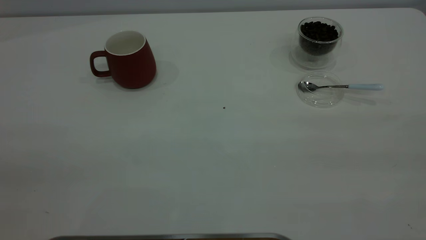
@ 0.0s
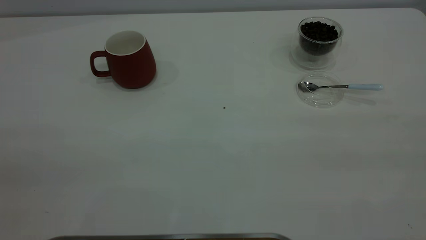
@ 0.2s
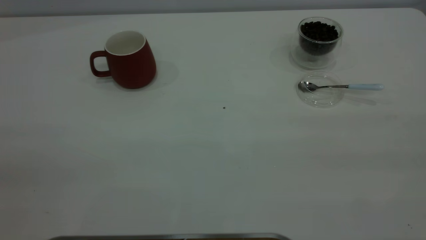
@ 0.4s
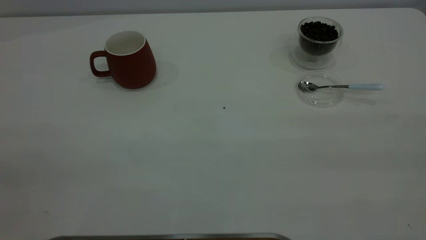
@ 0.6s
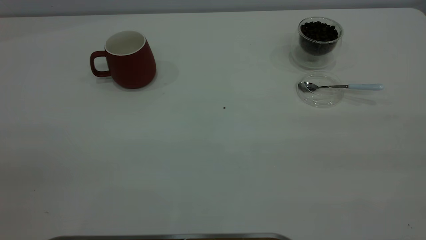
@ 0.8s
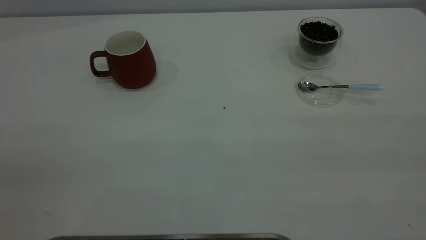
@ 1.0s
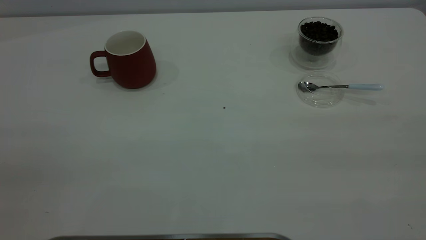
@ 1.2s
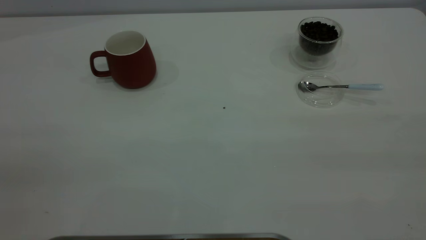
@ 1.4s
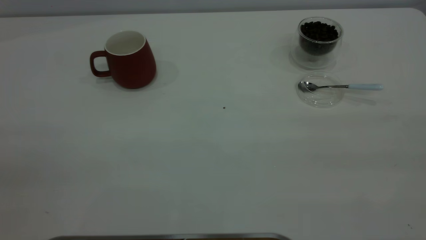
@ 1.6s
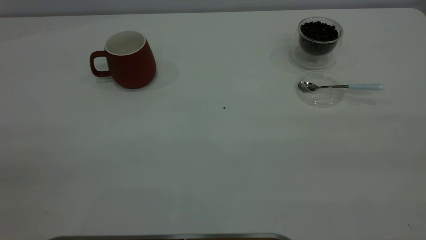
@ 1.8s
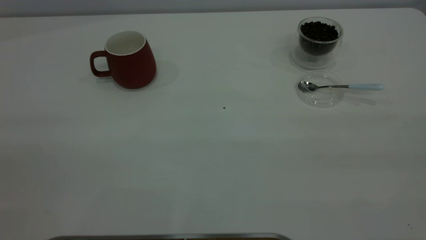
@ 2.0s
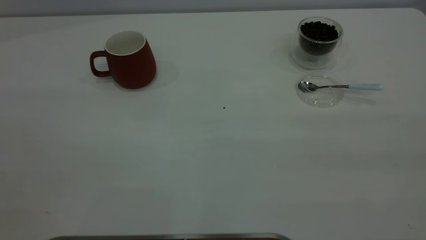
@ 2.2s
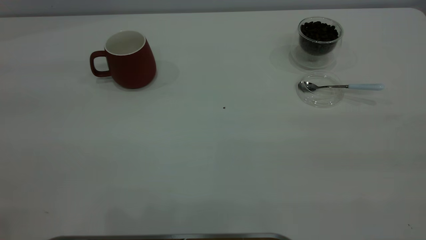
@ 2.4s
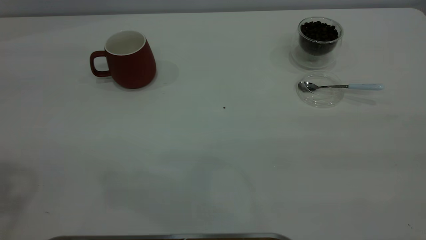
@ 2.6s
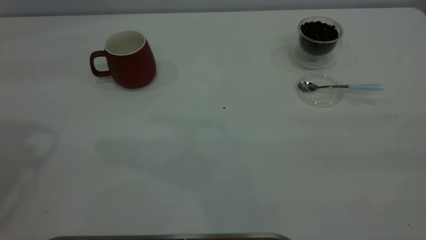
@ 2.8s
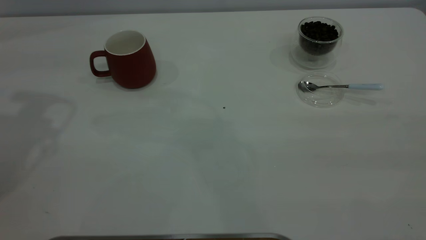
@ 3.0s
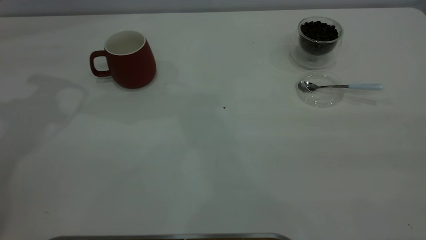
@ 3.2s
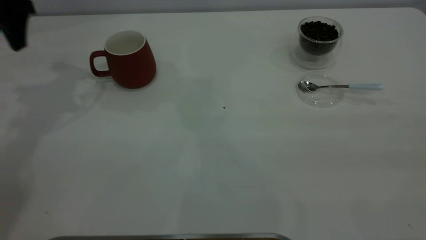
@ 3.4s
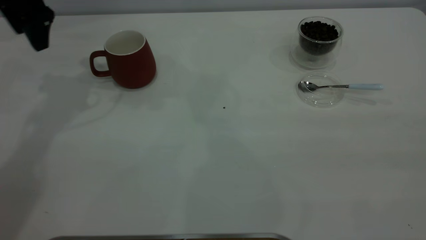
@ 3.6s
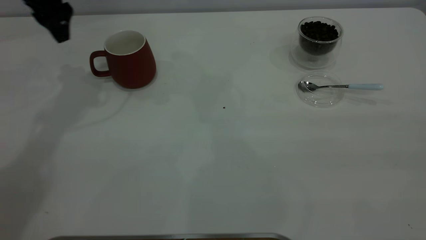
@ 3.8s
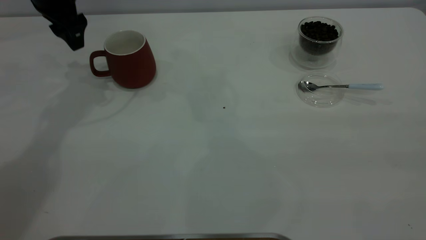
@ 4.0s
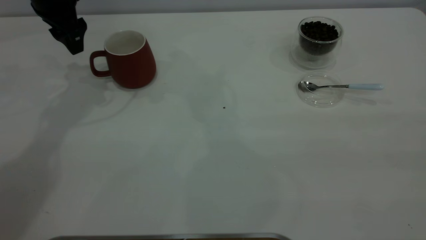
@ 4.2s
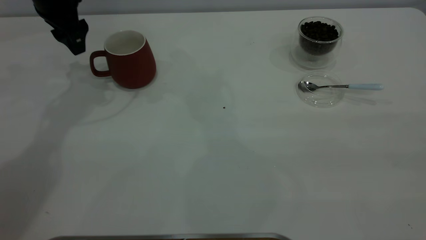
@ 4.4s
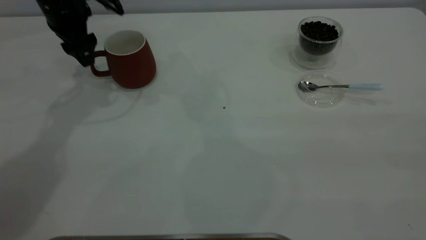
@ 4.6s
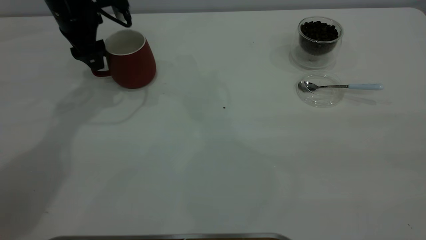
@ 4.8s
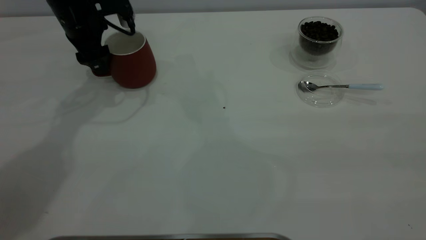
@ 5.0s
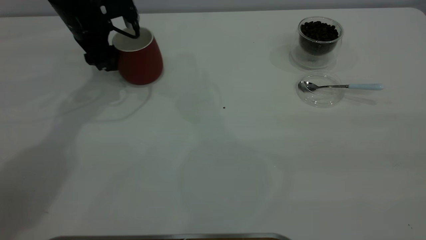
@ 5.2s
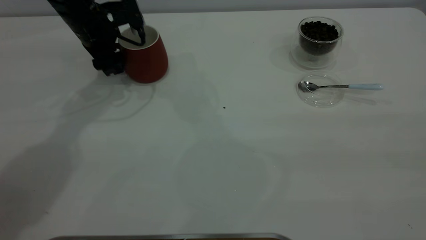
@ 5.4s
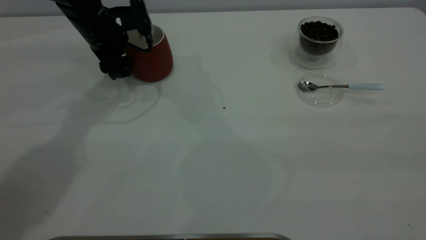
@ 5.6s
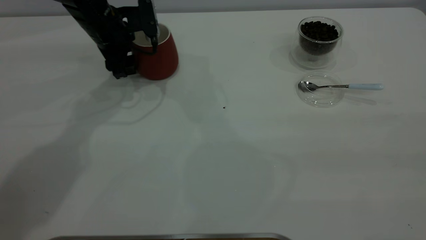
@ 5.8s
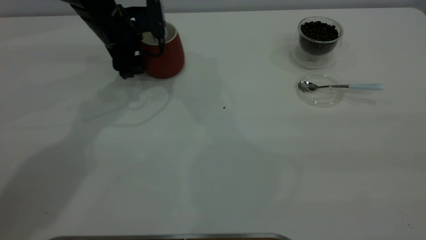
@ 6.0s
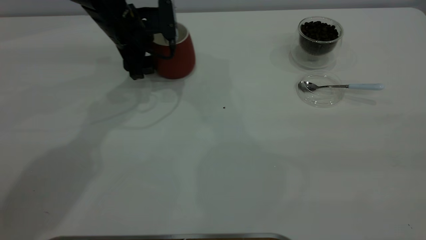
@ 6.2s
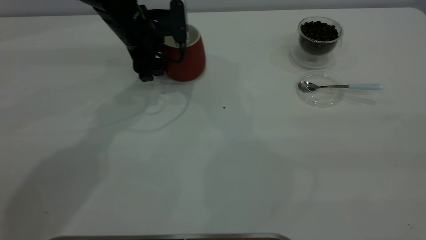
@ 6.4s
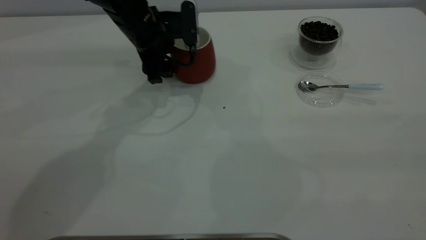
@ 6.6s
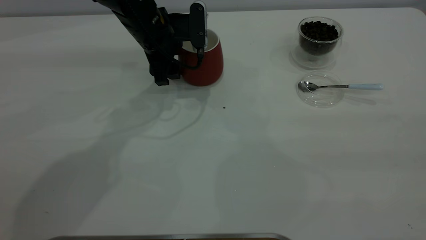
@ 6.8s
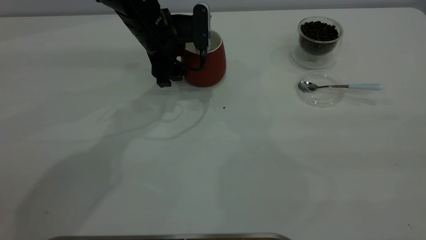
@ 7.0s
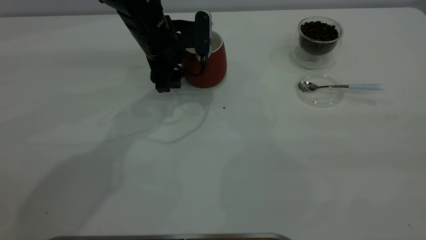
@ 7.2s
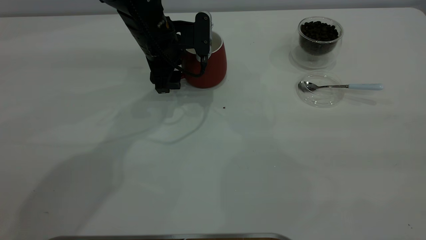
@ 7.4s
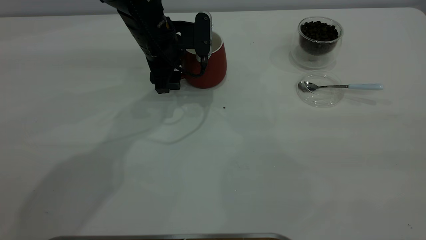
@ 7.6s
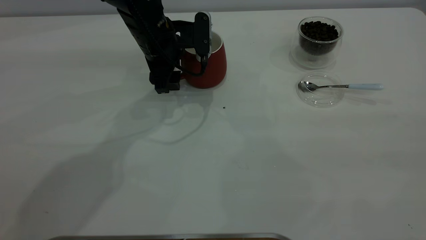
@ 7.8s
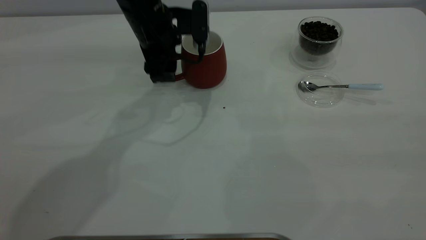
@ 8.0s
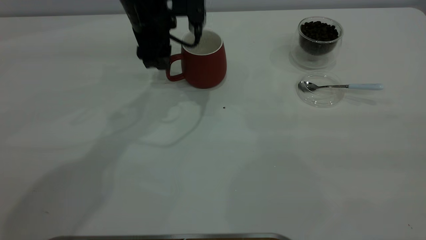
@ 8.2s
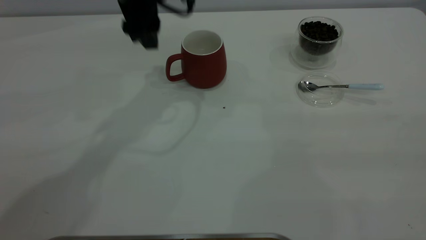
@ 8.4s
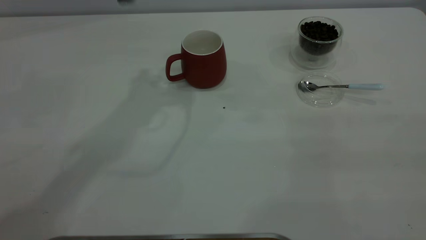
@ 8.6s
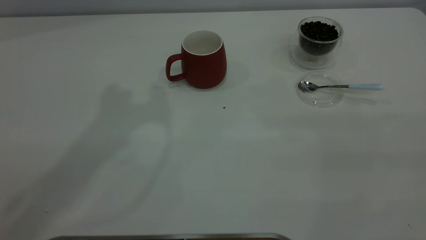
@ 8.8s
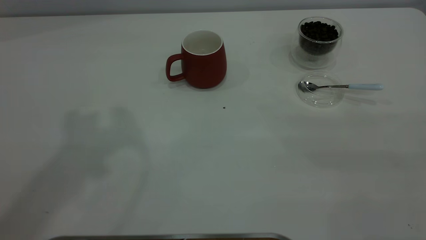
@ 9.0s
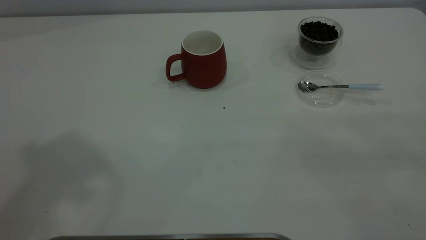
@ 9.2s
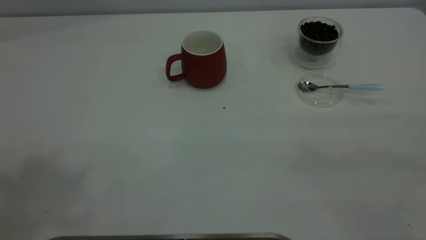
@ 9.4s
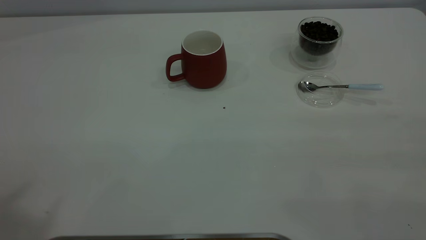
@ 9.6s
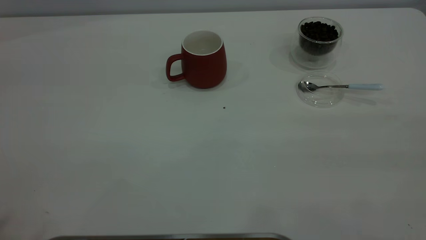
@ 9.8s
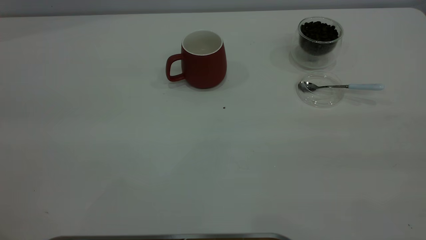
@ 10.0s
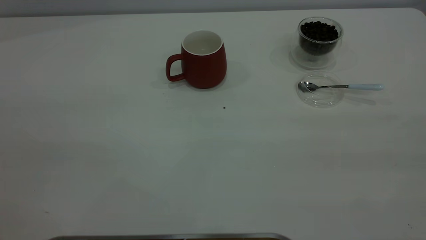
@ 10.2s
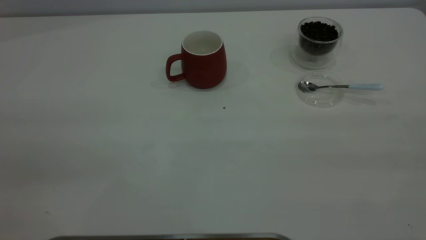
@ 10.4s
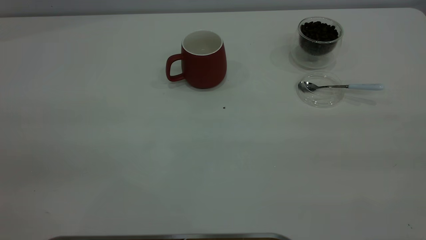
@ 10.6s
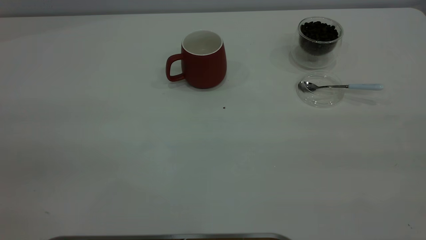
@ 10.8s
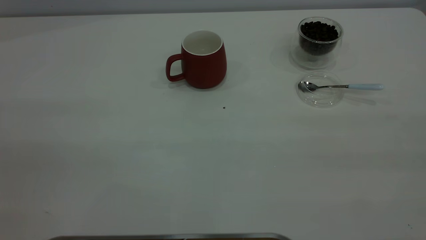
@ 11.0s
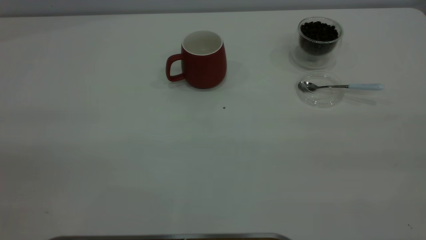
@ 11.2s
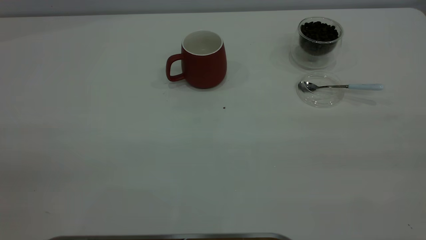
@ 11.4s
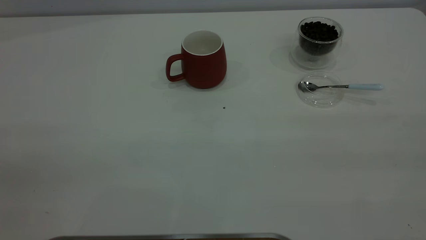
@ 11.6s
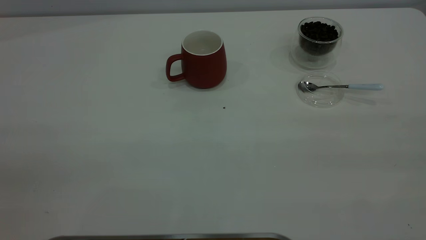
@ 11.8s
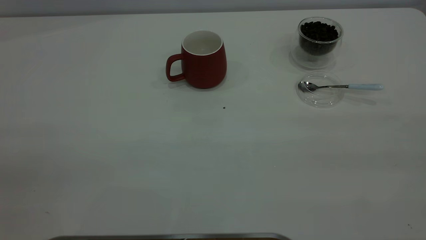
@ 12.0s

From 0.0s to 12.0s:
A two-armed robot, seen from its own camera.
Task of the whole recording: the left gripper place the red cup in the center of the table, the right gripper take the blue spoon from the cup lid and scoop out the coffee beans from the coffee cup and put them into the red cup, the right gripper put the spoon back into the cup lid.
Step, from 0.0s to 8.2s: Move the cup to the center of view.
From 0.0s to 1.6s: Both grippers stay about where they are.
From 3.0s to 4.4s: The left gripper is displaced downward, forward and to the right by approximately 20 cm.
From 4.4s to 6.0s: The left gripper shifts approximately 10 cm to the right and downward.
From 6.0s to 7.6s: The left gripper goes about 5 cm to the right.
From 7.6s to 9.0s: The left gripper heads upward and backward, covering roughly 40 cm.

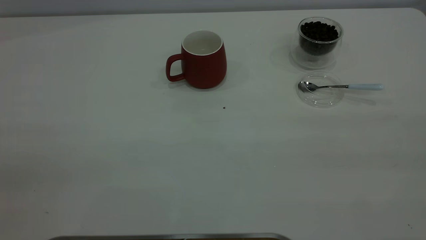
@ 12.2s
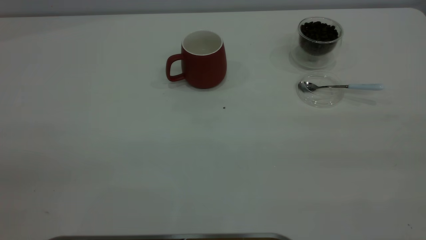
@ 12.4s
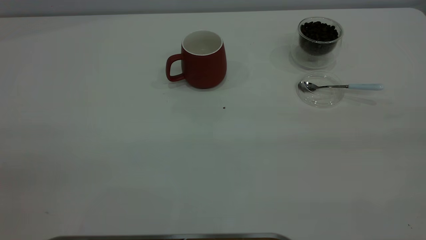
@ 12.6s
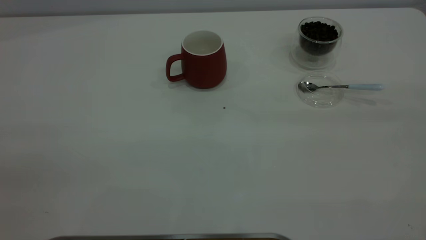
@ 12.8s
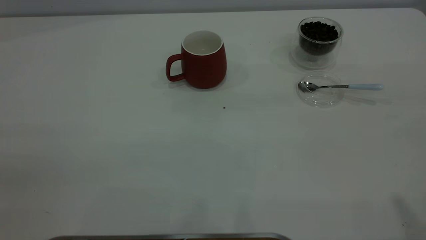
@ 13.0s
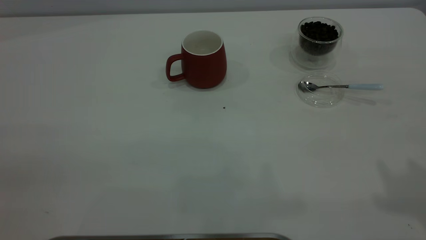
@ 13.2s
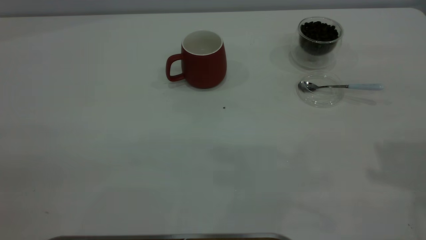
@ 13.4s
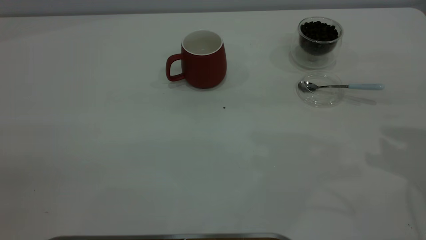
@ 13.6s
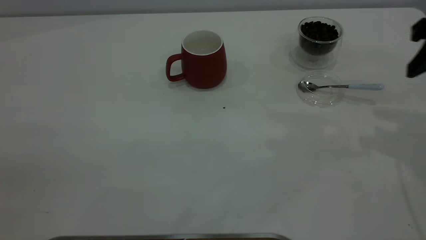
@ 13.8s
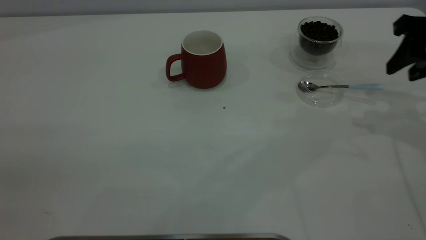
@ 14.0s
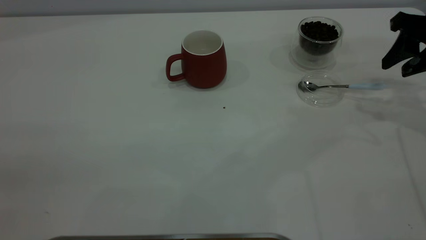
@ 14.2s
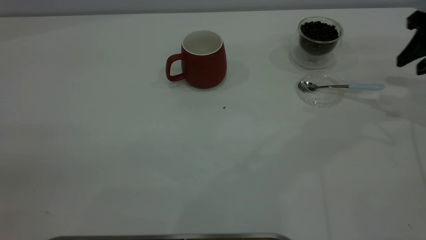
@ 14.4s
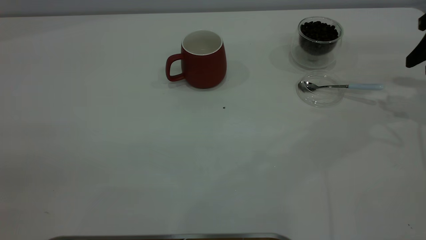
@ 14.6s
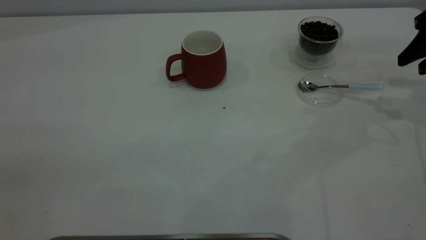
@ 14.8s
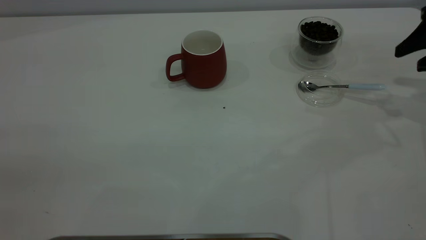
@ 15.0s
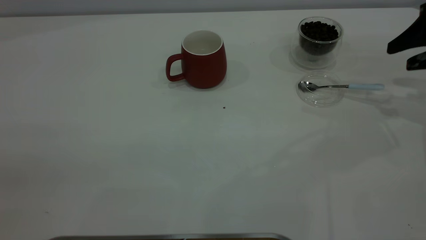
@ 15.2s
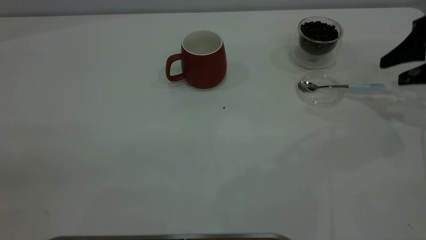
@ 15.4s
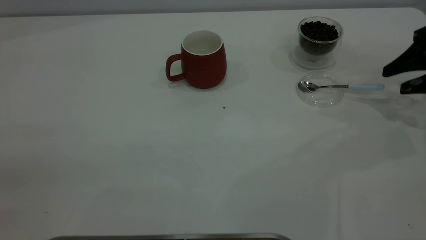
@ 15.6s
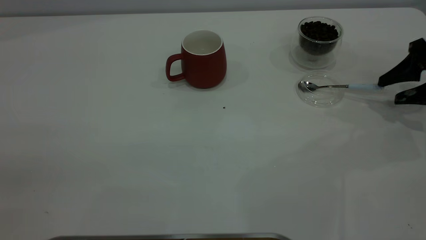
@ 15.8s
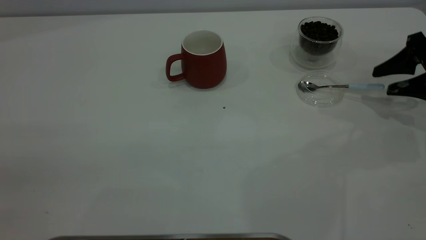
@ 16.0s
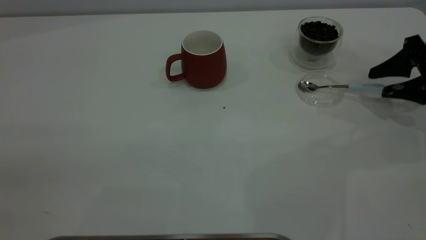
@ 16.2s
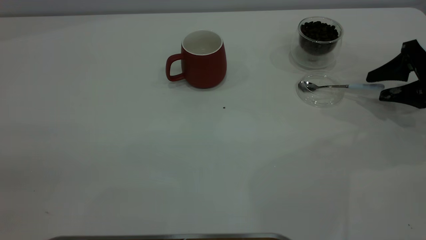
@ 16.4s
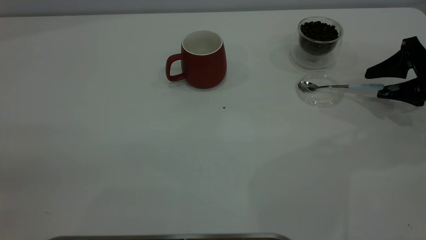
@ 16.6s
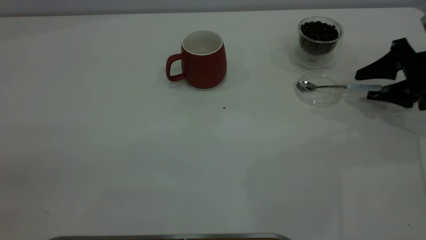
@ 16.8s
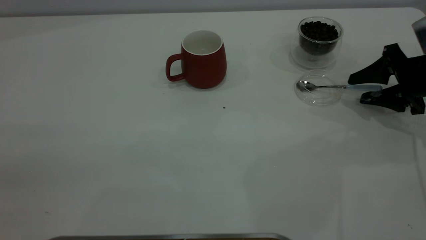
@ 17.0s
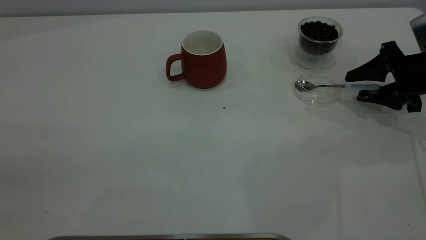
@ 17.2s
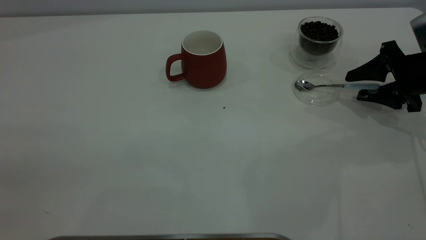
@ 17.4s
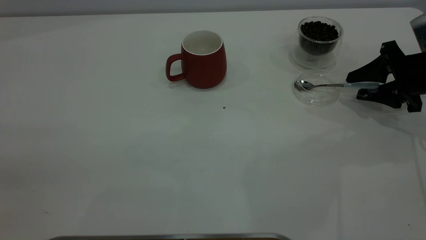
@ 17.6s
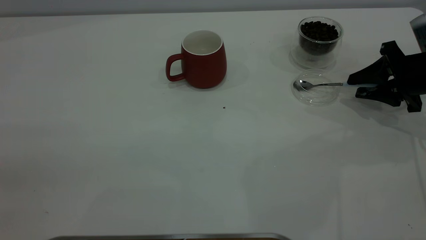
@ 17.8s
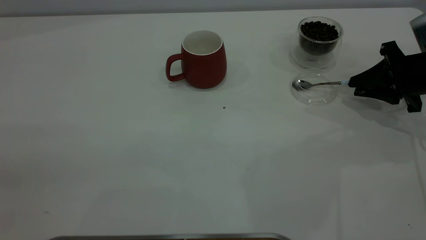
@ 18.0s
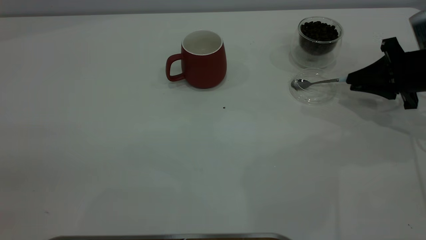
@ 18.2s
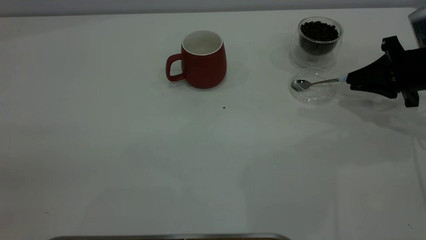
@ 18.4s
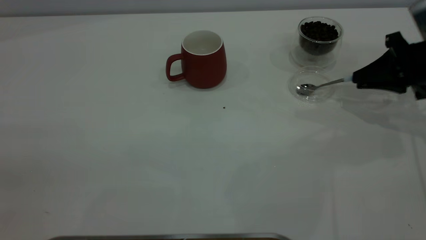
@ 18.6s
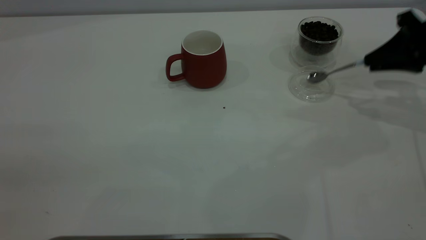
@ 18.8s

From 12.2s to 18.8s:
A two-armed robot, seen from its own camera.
Task of the whole recording: the left gripper place the red cup in the center of the table, the right gripper take the blue spoon from the cup lid and scoop out the coffee beans from the coffee cup and put them into the red cup, the right gripper put the spoon back into the cup lid.
Step, from 12.2s to 18.8s: Pick up the spoon.
From 12.2s to 13.8s: The right gripper moves forward and downward, some 35 cm, and opens its fingers.
From 13.8s to 15.4s: The right gripper is displaced downward, forward and to the right by some 10 cm.
From 15.4s to 17.2s: The right gripper travels downward by roughly 5 cm.
From 17.2s to 18.8s: The right gripper goes some 10 cm upward, and closes its fingers.
